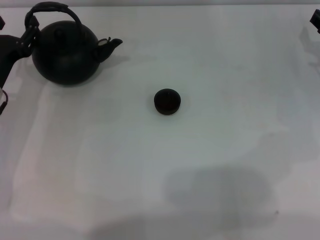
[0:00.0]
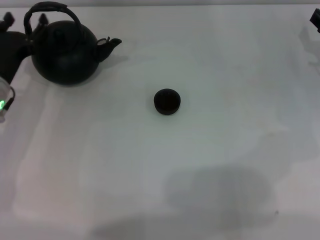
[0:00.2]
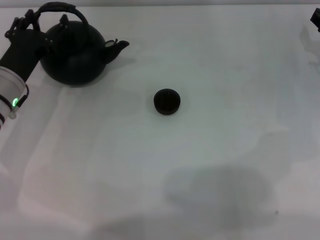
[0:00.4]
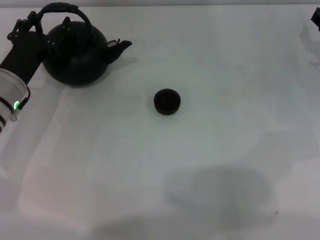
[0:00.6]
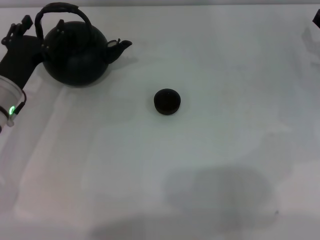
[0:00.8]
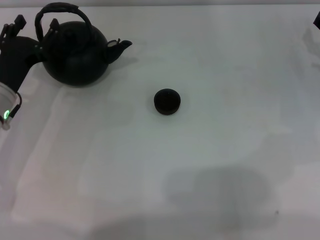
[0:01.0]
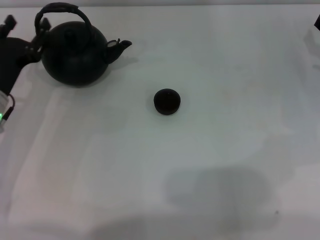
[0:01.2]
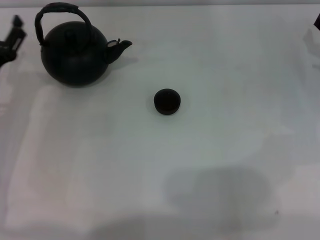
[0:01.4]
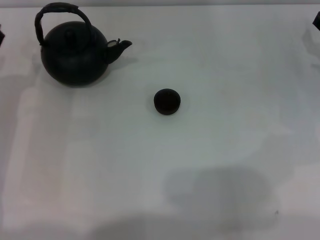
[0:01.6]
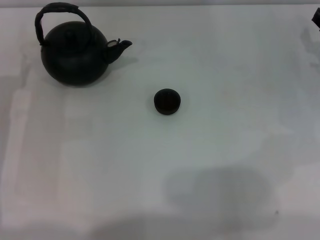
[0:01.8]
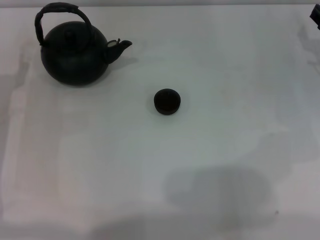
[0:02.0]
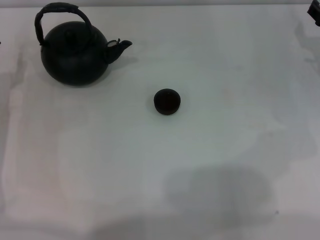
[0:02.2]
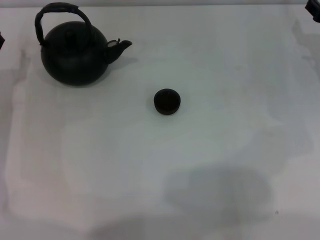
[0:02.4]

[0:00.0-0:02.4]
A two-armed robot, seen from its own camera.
Task of the whole recording: Grasp the handle of the teapot with one hand and pour tea into the teacup.
0:00.0 to 0:01.2: The grippers stay close to where they were, moving slightly.

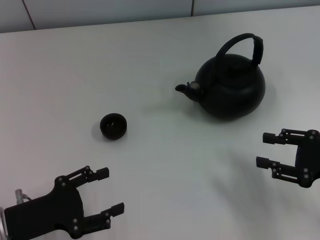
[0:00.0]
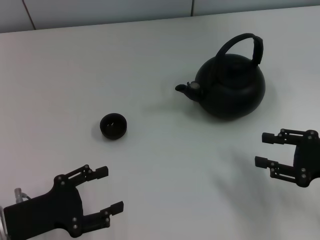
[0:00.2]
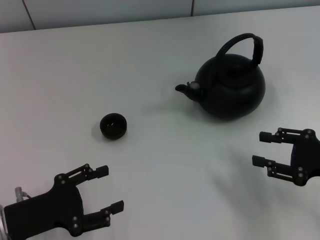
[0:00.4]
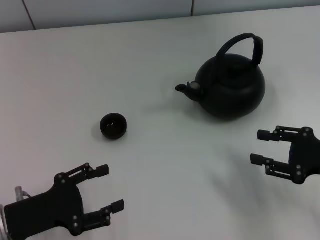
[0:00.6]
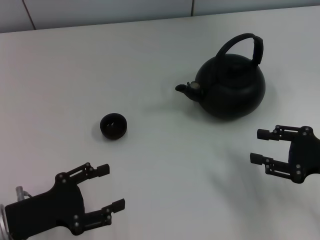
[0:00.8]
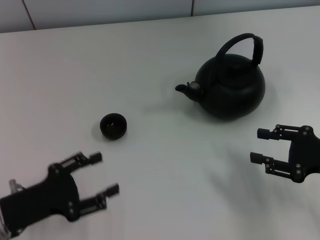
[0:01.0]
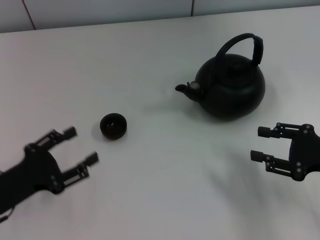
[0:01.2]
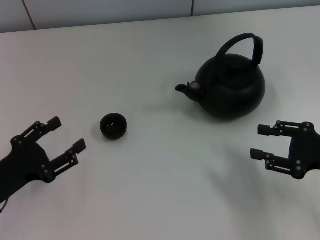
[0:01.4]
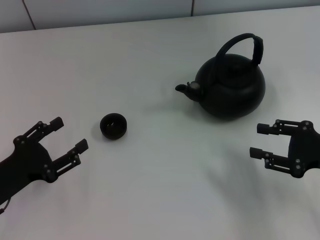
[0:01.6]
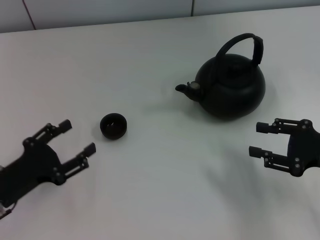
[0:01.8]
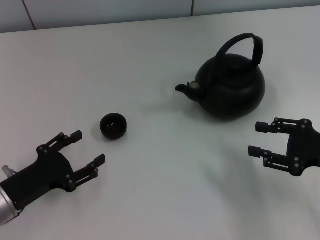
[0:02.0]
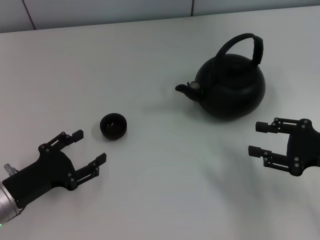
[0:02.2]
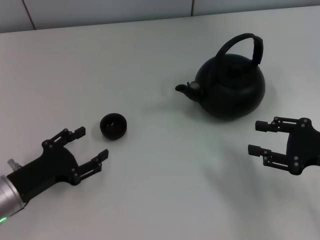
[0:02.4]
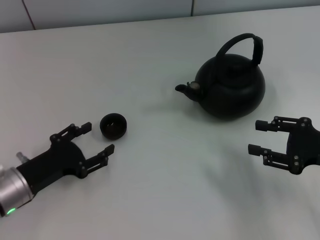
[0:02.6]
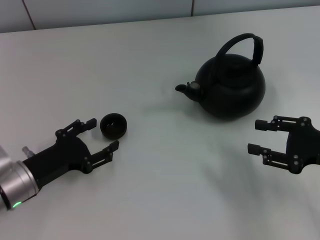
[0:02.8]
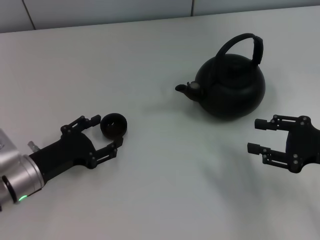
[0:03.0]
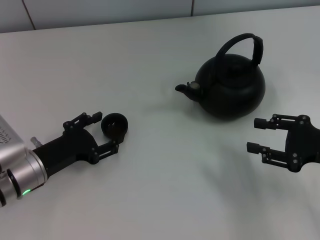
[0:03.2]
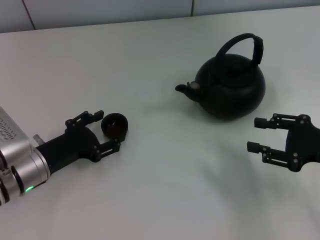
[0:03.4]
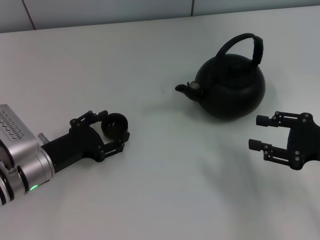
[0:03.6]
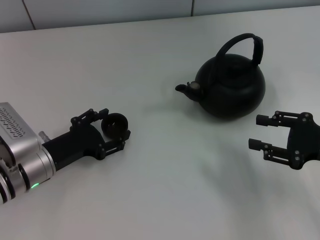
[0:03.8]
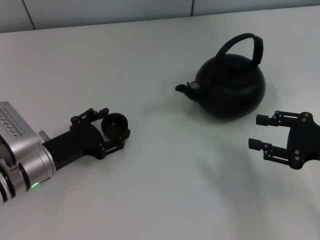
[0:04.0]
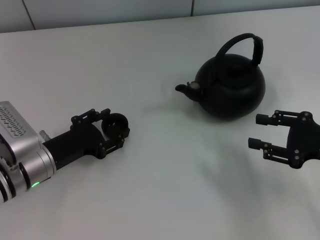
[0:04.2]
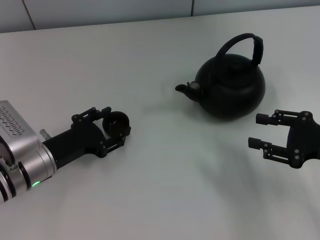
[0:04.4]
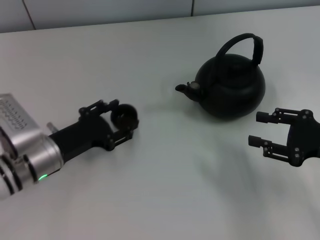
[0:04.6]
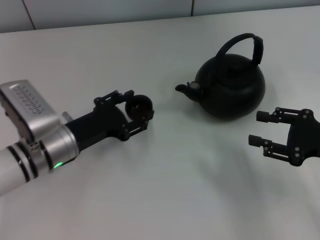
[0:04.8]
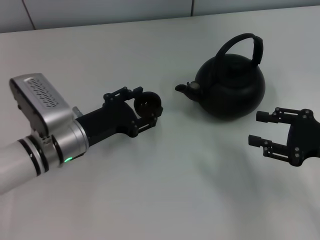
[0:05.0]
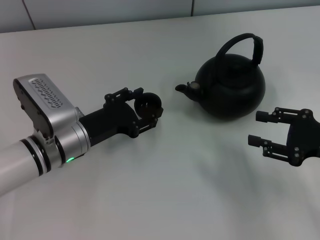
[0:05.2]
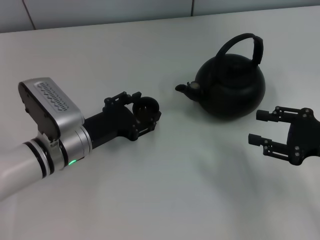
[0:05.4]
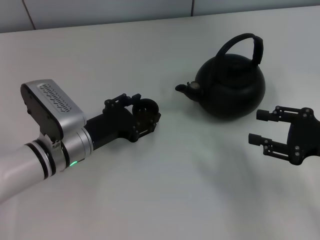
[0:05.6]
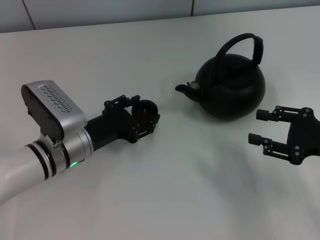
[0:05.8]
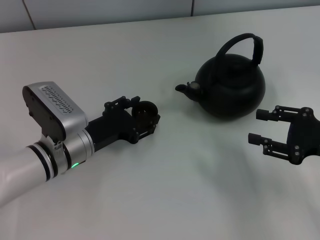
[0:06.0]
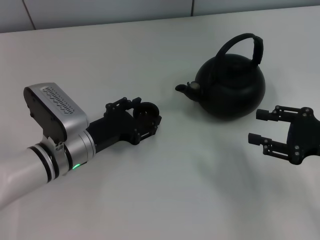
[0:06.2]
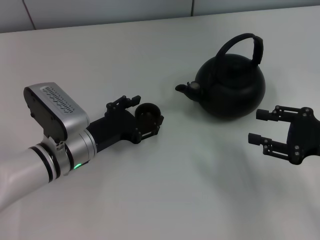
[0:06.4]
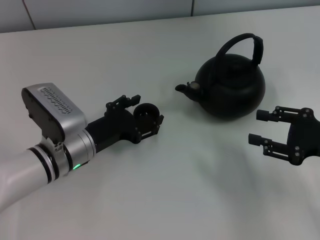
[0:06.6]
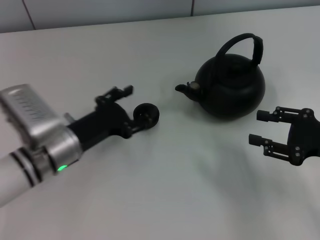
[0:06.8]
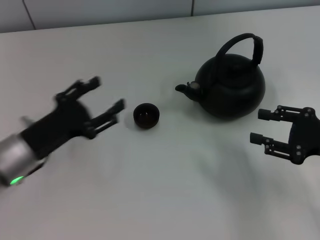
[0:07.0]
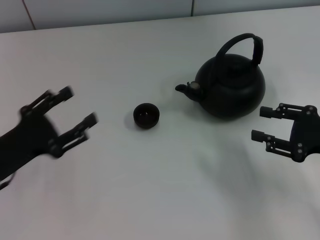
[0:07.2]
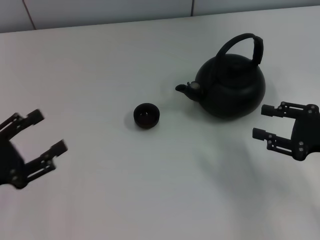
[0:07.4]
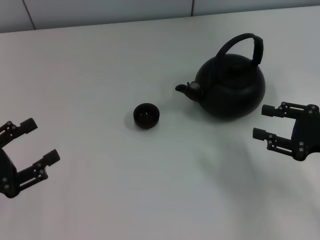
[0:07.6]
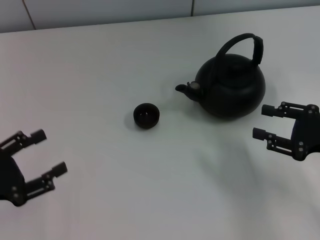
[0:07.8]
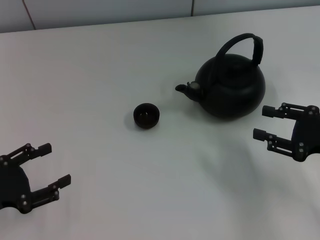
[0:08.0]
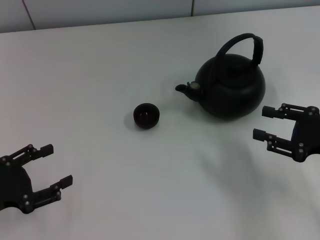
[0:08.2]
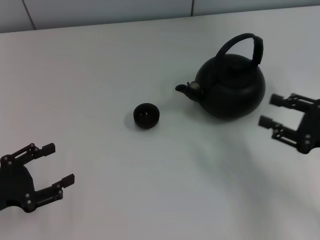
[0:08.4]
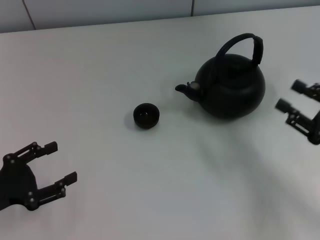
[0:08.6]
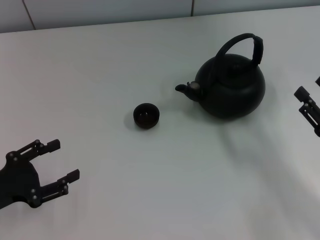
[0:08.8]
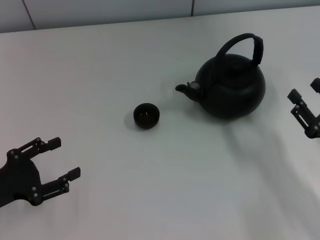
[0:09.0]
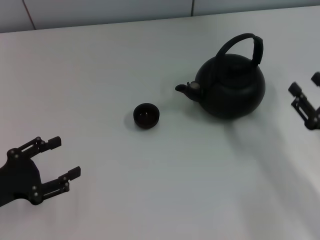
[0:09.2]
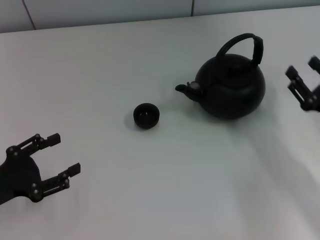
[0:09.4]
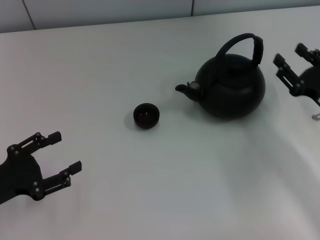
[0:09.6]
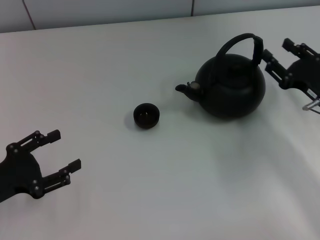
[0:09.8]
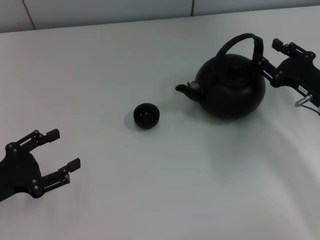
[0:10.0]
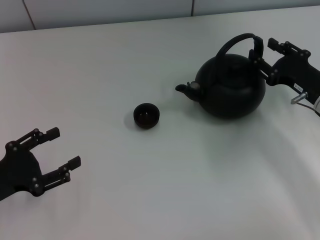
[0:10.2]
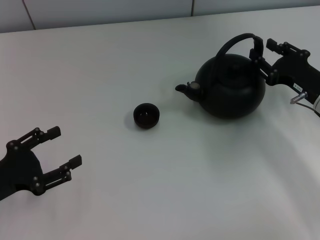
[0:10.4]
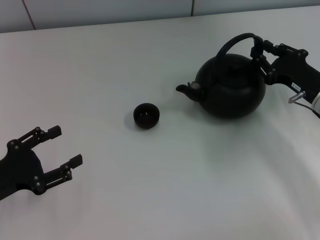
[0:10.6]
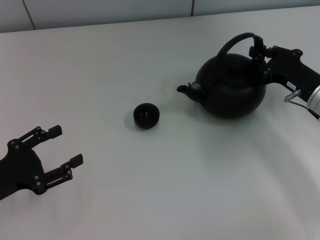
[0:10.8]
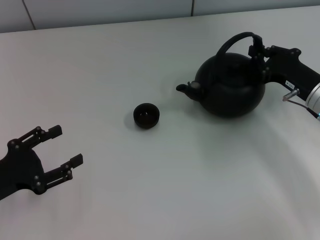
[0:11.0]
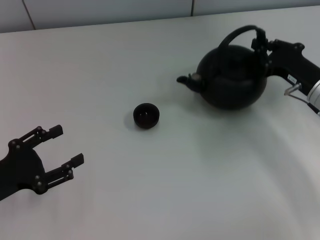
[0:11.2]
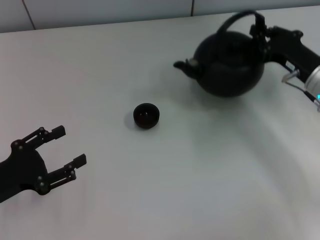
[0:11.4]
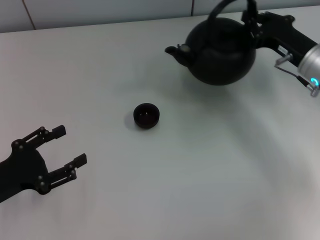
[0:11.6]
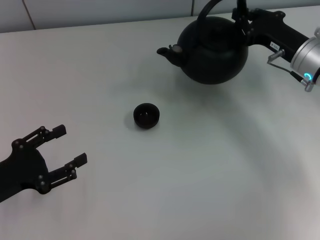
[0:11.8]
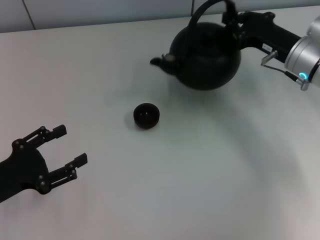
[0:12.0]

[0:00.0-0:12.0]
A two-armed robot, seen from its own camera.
Task of the whole recording: Grasp the handle of the teapot with one hand and pour tea into the teacup.
Step, 0:00.0 to 0:04.6: Pick up the teacup with the left gripper.
Step, 0:04.8 to 0:06.6: Place the teacup in the center of view with the left gripper.
Step, 0:06.8 to 0:11.2: Pick up the teapot with the right gripper.
0:01.6 to 0:03.0: The left gripper travels to the right by roughly 5 cm.
0:03.0 to 0:04.4: The grippers stay close to where they were, moving slightly.
0:04.4 to 0:06.0: The left gripper is displaced to the right by approximately 5 cm.
0:06.0 to 0:07.6: The left gripper heads to the left and backward, covering approximately 20 cm.
0:07.6 to 0:09.0: The right gripper travels downward by about 5 cm.
0:09.0 to 0:10.4: The right gripper moves forward, approximately 10 cm.
0:10.4 to 0:12.0: The right gripper shifts about 5 cm forward, and closes its fingers.

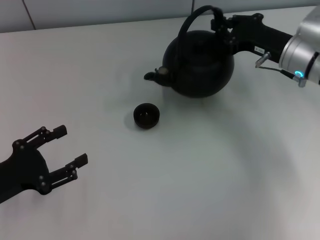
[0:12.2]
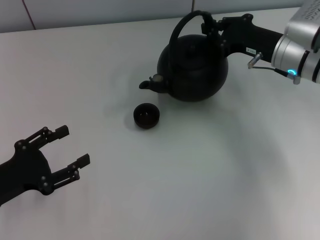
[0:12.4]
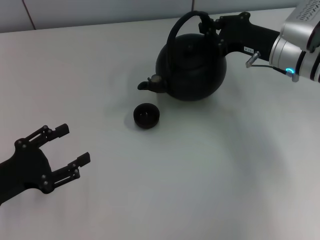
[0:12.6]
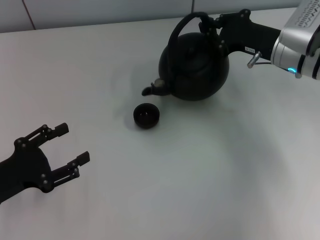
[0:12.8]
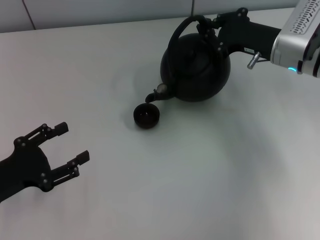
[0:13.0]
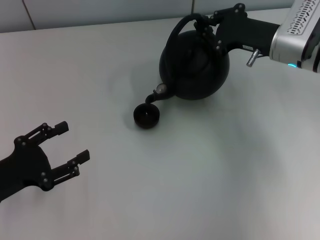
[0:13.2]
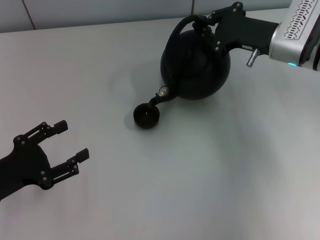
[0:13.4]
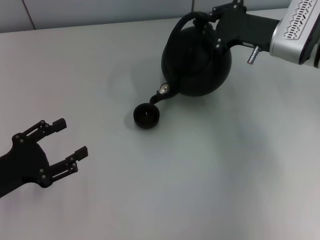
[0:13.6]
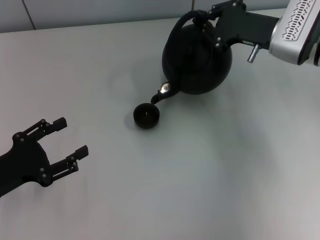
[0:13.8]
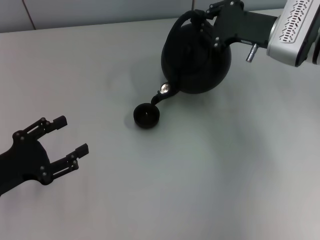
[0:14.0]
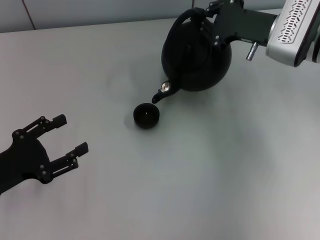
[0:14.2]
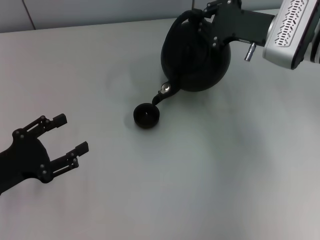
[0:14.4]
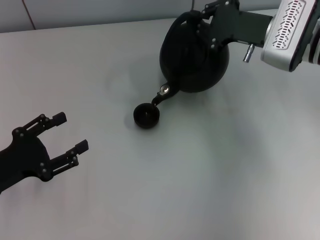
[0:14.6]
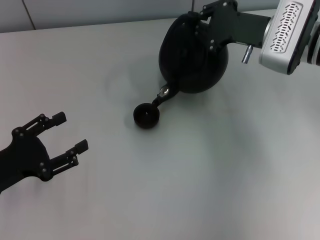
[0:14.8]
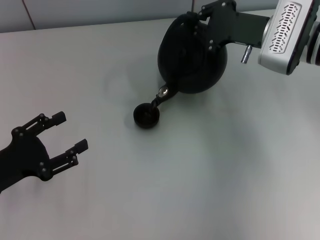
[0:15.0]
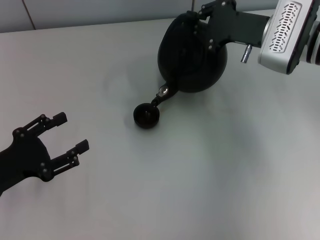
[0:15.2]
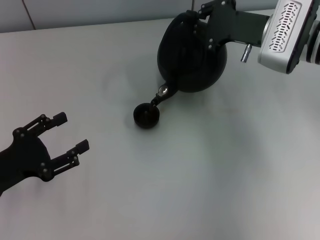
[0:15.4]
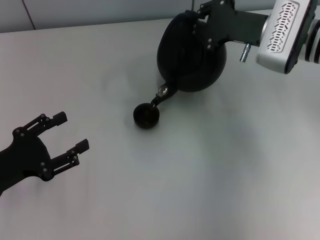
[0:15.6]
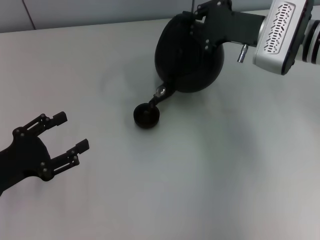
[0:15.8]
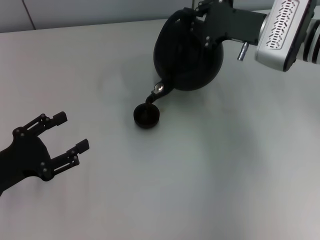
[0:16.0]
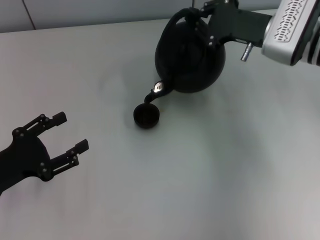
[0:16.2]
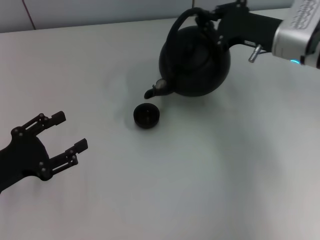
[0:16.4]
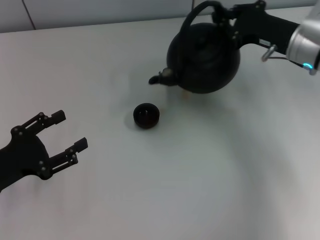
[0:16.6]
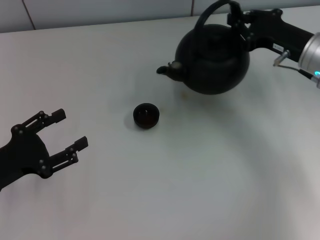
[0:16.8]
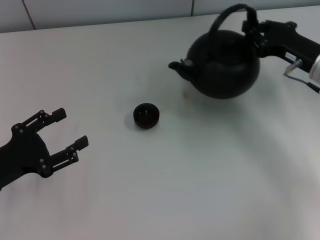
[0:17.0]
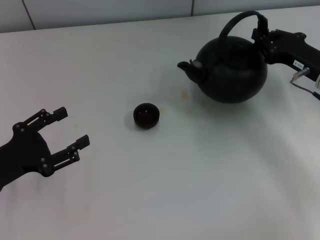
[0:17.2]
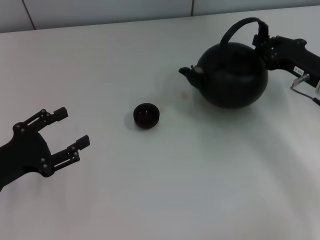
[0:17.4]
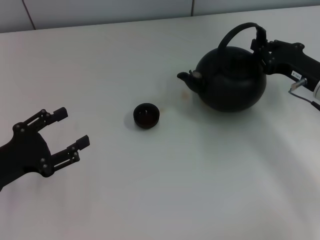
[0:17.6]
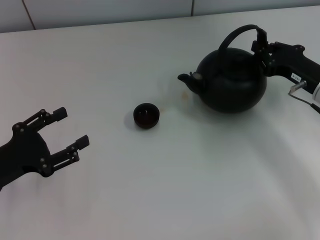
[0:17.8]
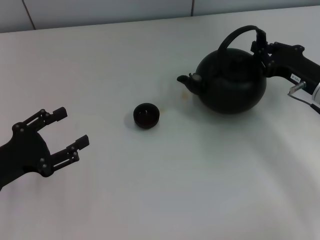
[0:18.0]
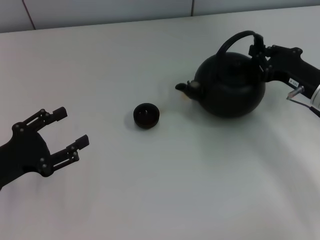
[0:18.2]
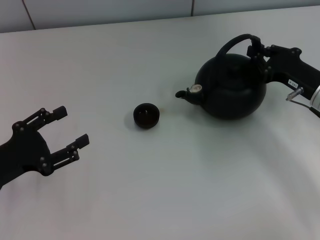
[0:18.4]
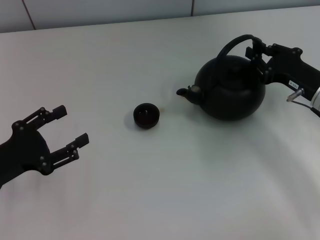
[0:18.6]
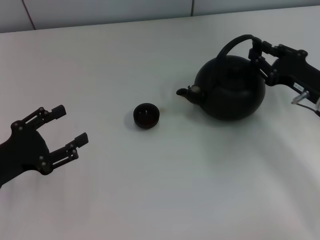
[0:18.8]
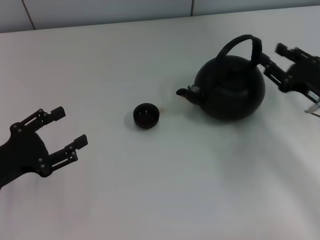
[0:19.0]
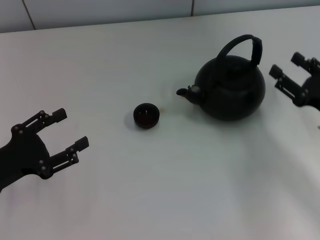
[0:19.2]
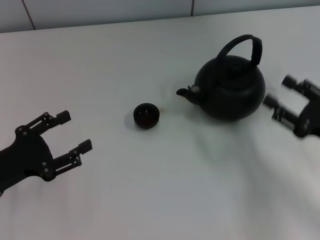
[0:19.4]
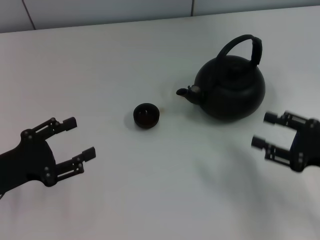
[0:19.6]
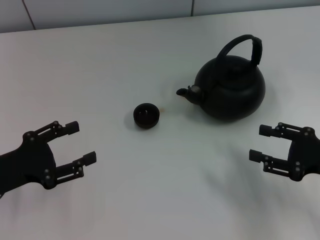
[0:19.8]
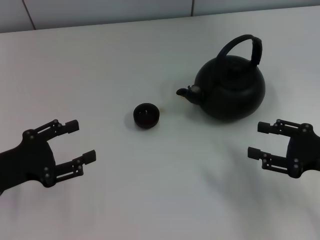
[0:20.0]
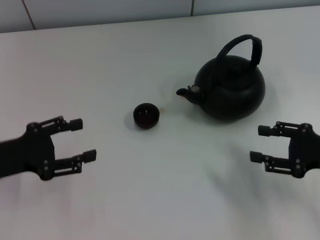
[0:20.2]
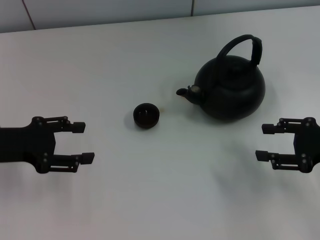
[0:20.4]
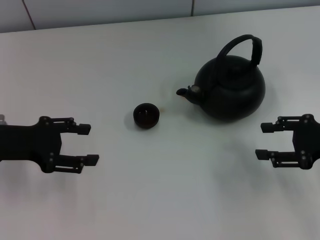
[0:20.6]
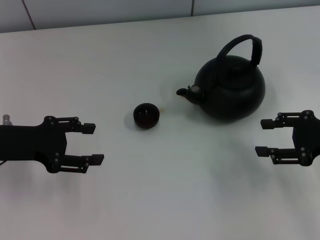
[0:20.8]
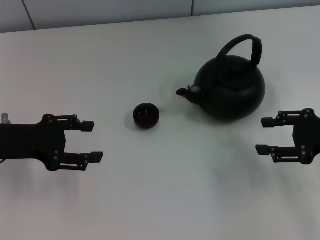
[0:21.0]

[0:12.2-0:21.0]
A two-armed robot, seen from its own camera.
Task of the whole recording: Grasp the handle of the teapot with one hand and pour tea into the teacup.
Step, 0:16.6 to 0:19.2: Put down the teapot with the right gripper.
0:13.6 to 0:15.2: The grippers move only a little.
0:16.6 to 0:18.0: The right gripper moves downward and backward, about 10 cm.
0:18.0 to 0:19.6: The right gripper travels backward by about 10 cm, and opens up.
0:19.6 to 0:21.0: Both grippers move forward, approximately 5 cm.
